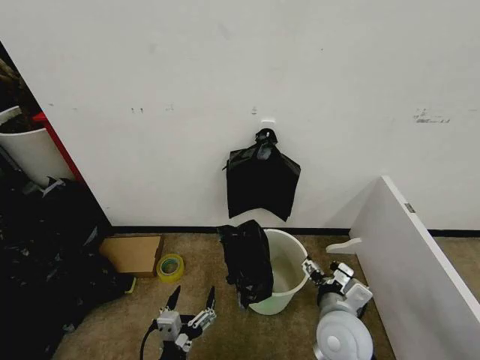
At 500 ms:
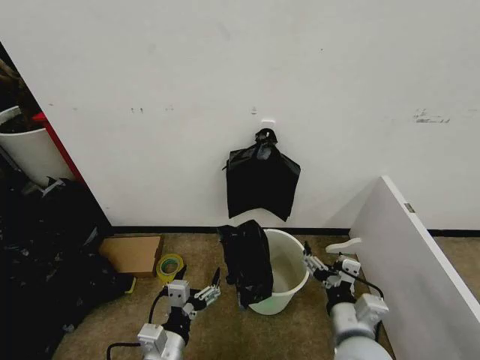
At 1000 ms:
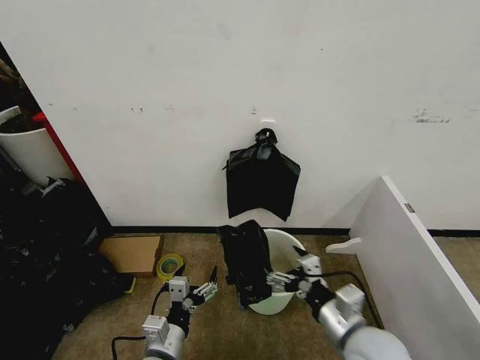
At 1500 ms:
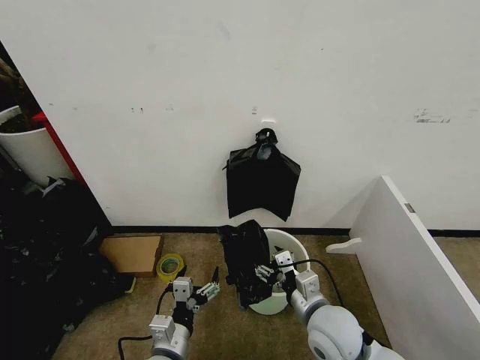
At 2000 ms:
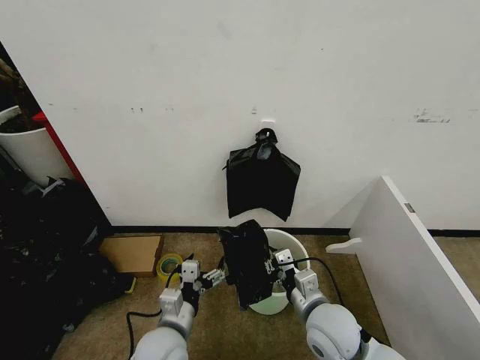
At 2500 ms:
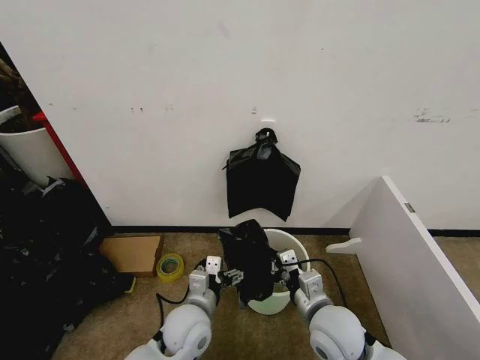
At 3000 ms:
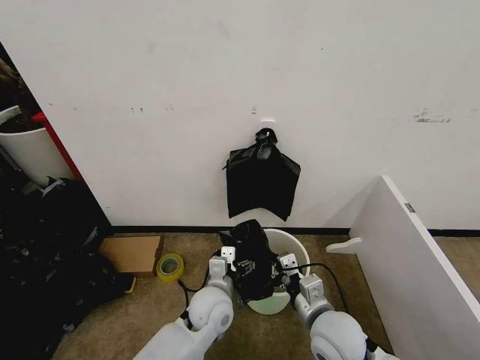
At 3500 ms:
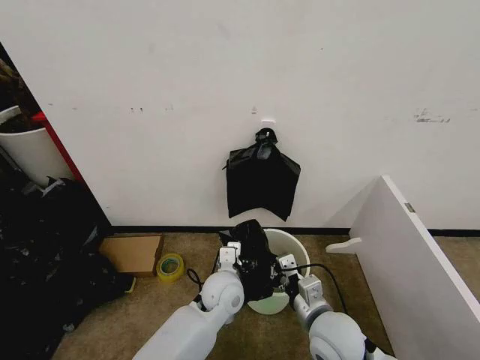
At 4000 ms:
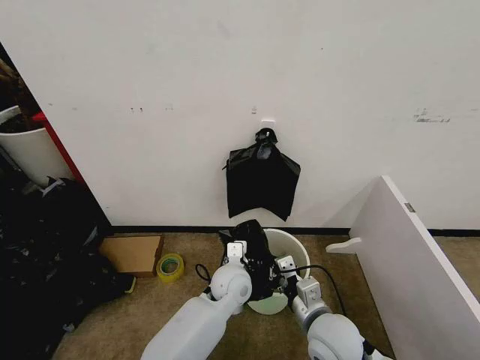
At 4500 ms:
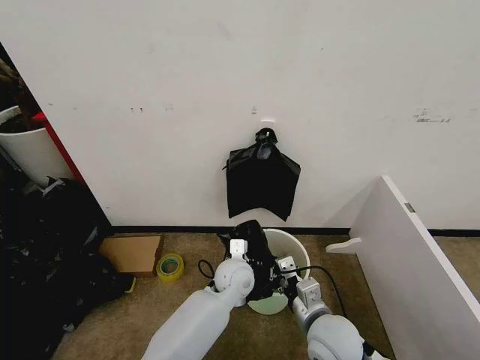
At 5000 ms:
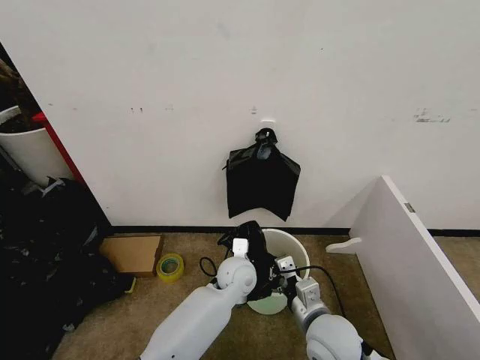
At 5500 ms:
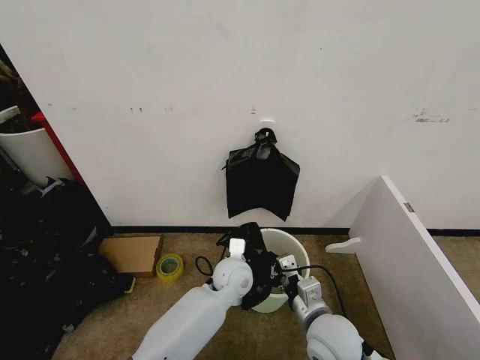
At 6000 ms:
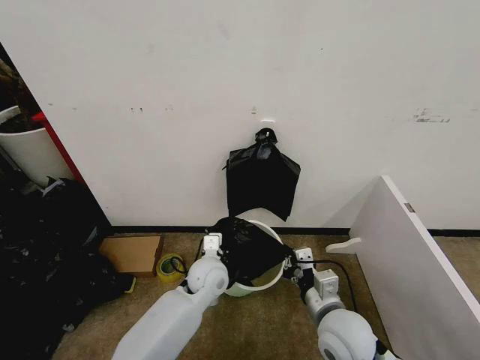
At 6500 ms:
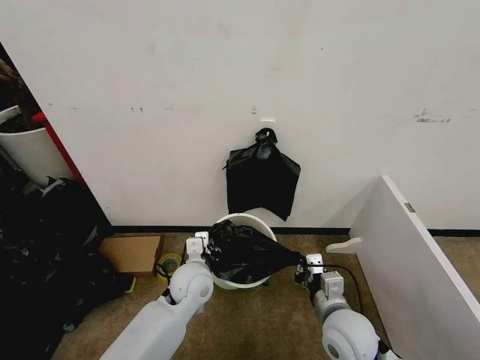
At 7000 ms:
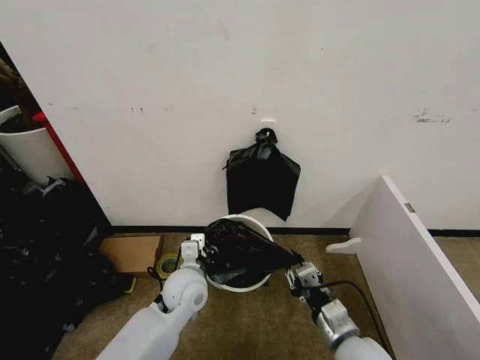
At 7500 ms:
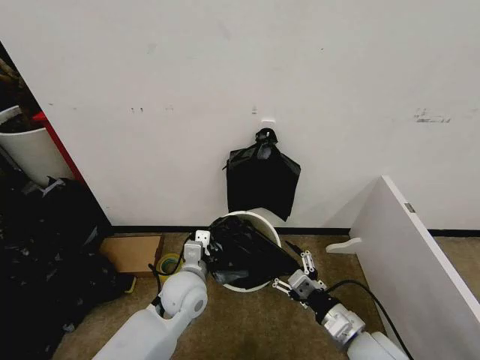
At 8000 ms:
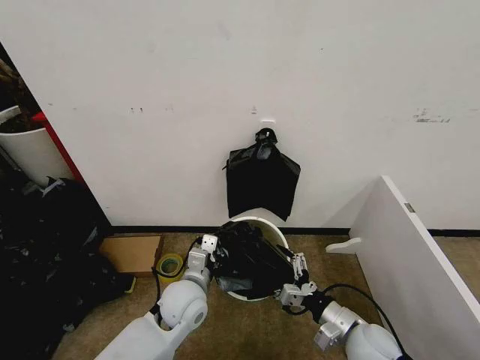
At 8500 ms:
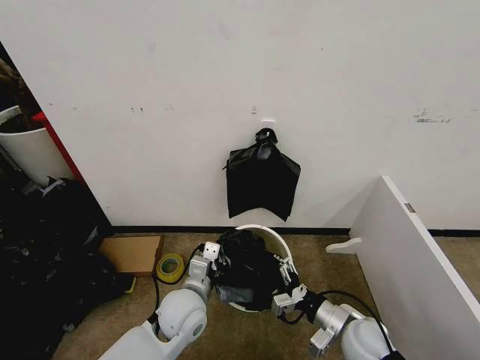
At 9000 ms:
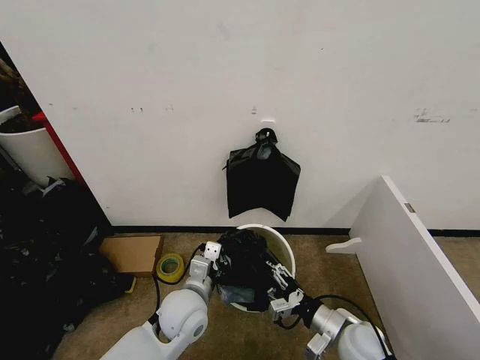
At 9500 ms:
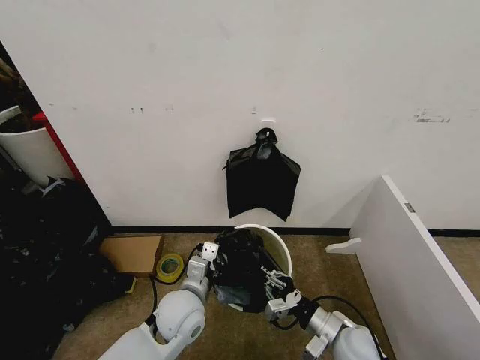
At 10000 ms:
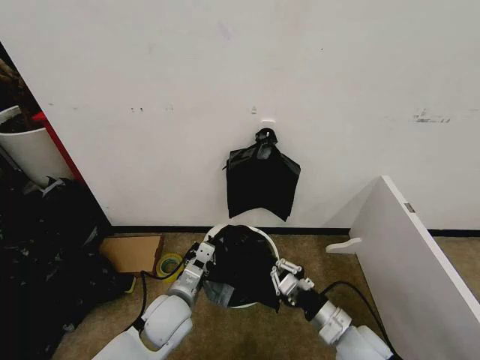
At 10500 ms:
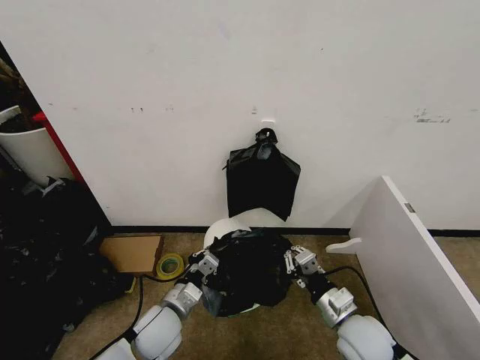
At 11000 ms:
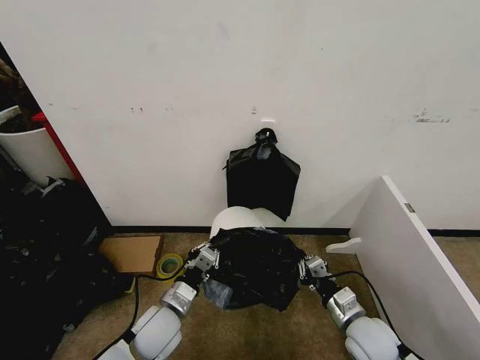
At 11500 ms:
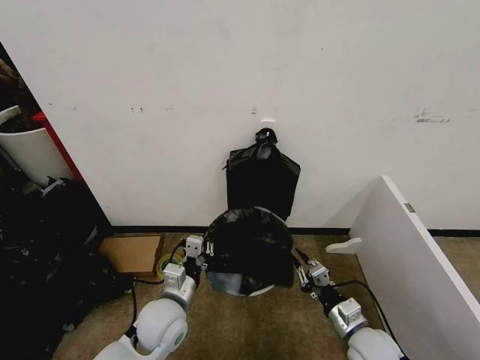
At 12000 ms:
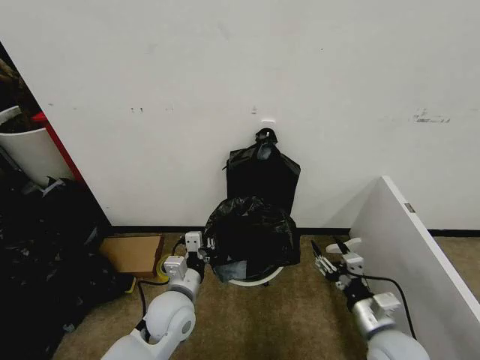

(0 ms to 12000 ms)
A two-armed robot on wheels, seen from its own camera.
Task of the whole recording: Place the garbage bag over the trash bin.
0 ms - 2000 ms: The left gripper is displaced forward by approximately 15 cm, while the right gripper closes up.
2000 ms - 4000 ms: The left gripper goes approximately 20 cm forward and to the right.
4000 ms - 6000 ms: The left gripper travels to the left by about 5 cm, and closes.
6000 ms - 8000 ms: The left gripper travels backward by approximately 5 cm. The right gripper is displaced to the right and downward by about 10 cm, and opens up.
8000 ms - 10000 ms: The right gripper closes up.
10000 ms - 12000 ms: The right gripper moves to the right, roughly 5 cm, and opens.

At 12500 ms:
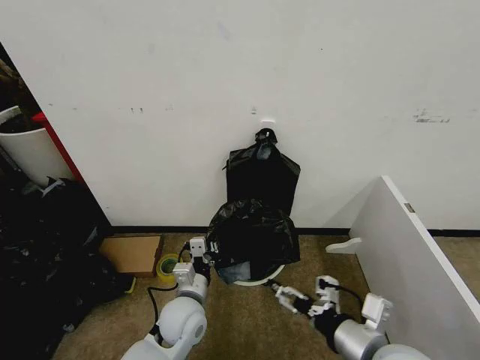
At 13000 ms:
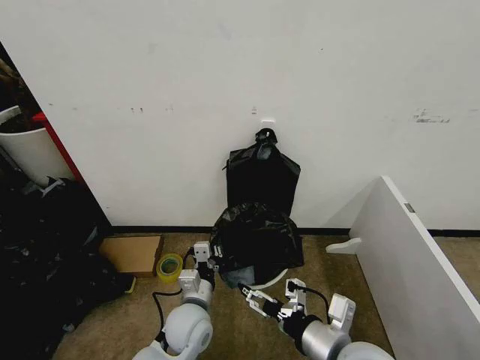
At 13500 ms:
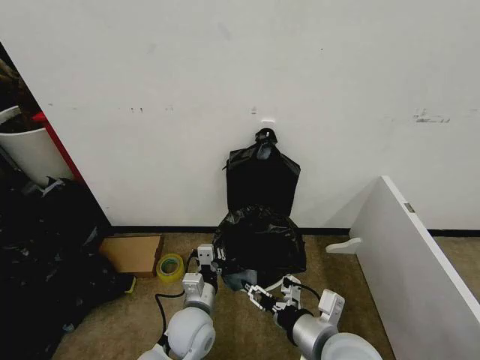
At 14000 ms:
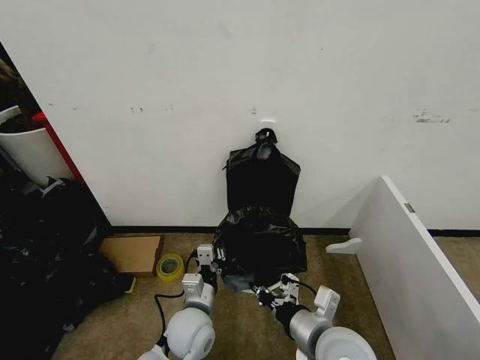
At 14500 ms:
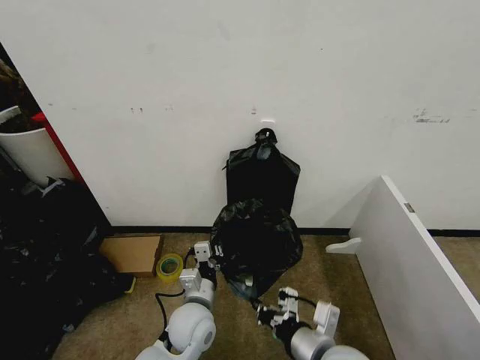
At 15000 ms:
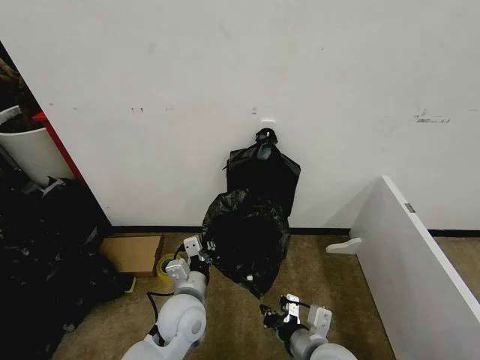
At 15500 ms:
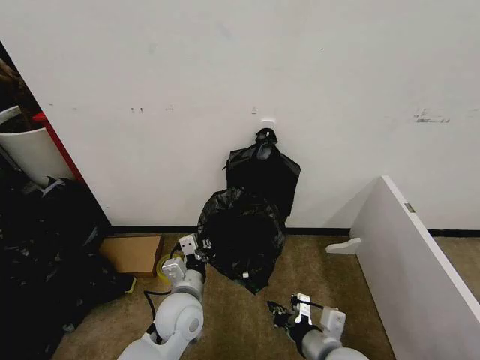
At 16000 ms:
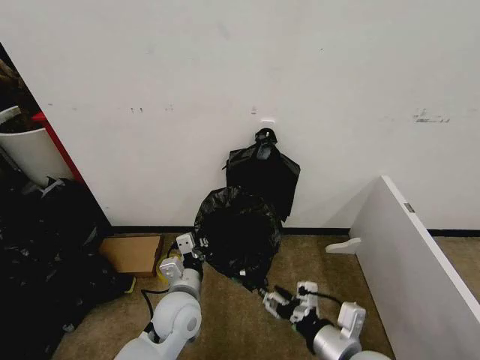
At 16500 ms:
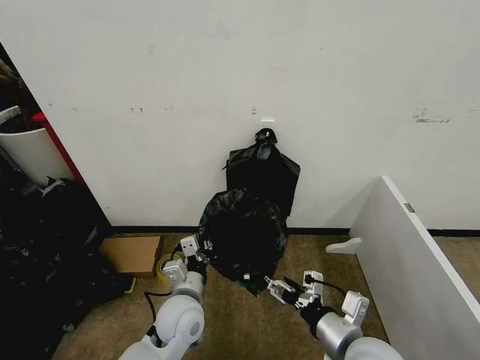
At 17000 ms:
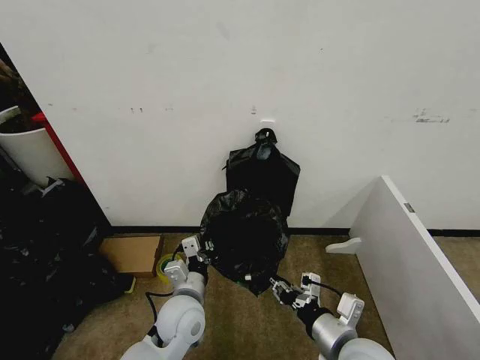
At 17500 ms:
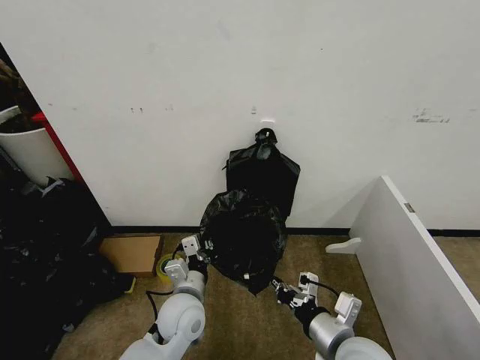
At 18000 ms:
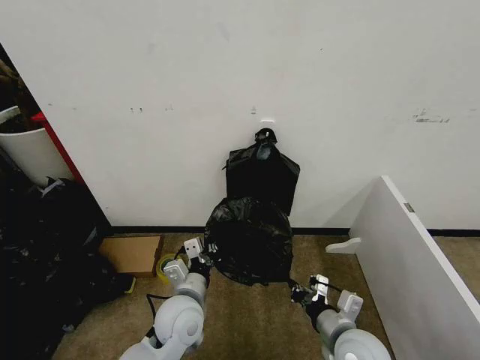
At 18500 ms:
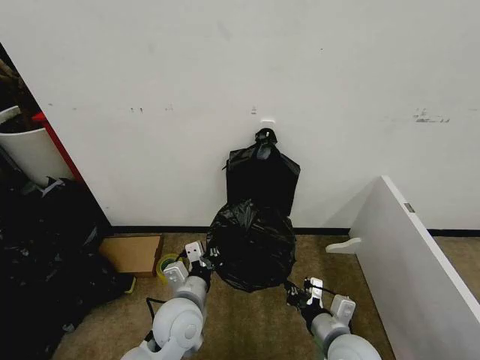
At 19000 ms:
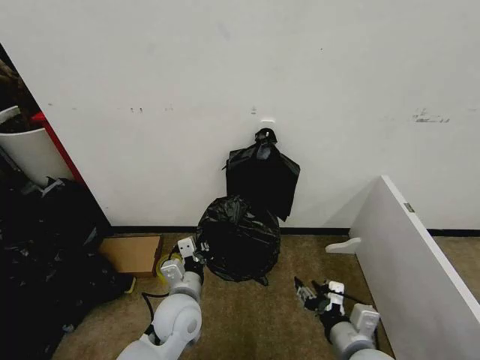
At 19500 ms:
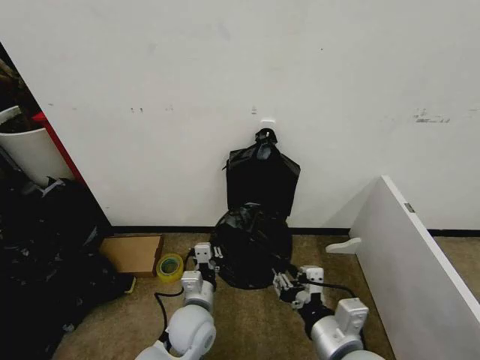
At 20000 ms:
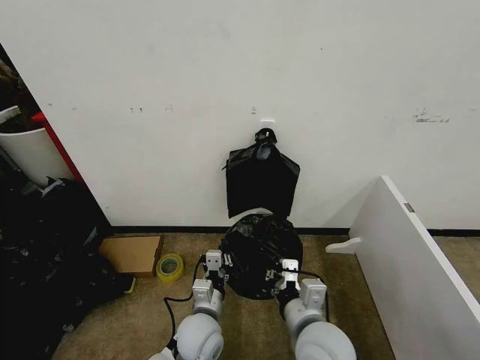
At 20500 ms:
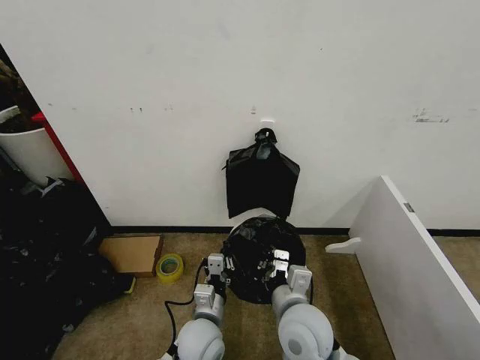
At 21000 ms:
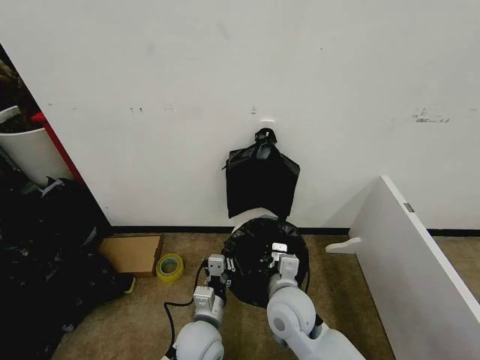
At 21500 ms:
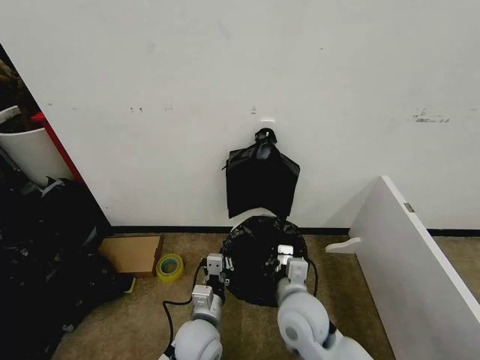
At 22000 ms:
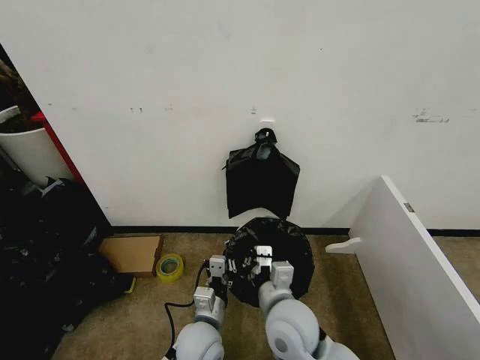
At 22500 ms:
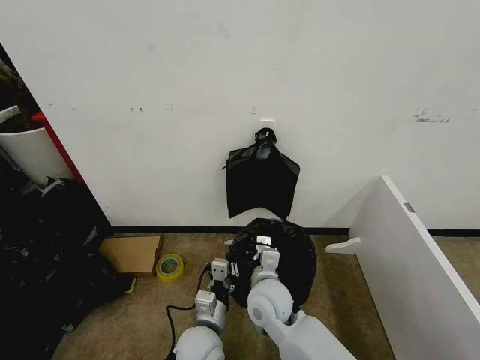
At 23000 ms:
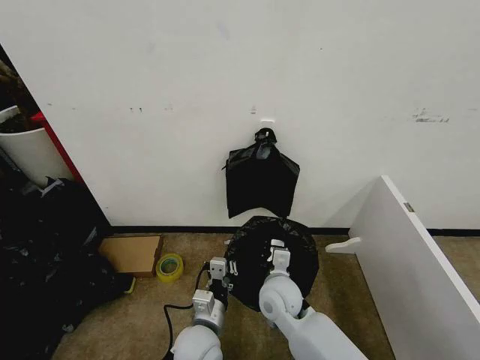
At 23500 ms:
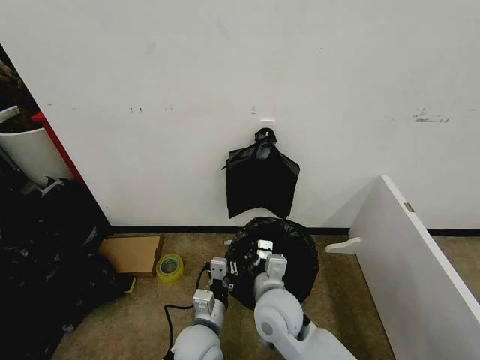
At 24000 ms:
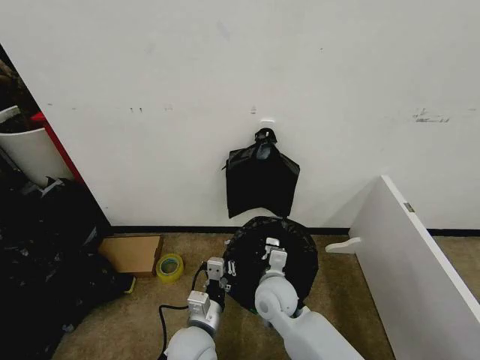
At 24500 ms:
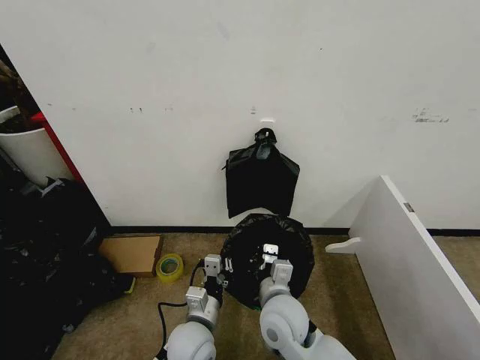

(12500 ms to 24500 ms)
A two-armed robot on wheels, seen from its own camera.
Task of the whole recording: Place the garbage bag over the trash bin.
12500 ms - 14500 ms: The right gripper travels to the left and downward by about 10 cm, and closes its fingers.
14500 ms - 16500 ms: The right gripper heads to the right, covering about 5 cm, and opens its fingers.
16500 ms - 18500 ms: The right gripper goes roughly 10 cm downward, and closes up.
18500 ms - 20500 ms: The right gripper goes roughly 10 cm to the left and upward, and opens and closes again. The left gripper shifts roughly 5 cm downward.
20500 ms - 22500 ms: The right gripper travels forward and to the left by roughly 10 cm.
22500 ms - 24500 ms: The grippers stay close to where they were, moving slightly.

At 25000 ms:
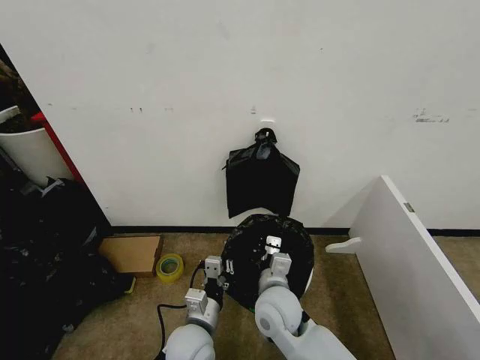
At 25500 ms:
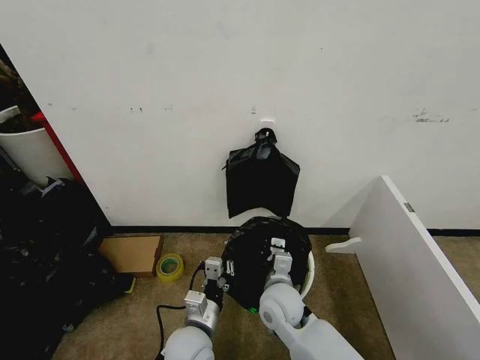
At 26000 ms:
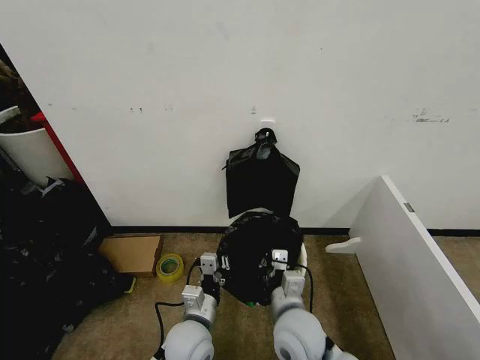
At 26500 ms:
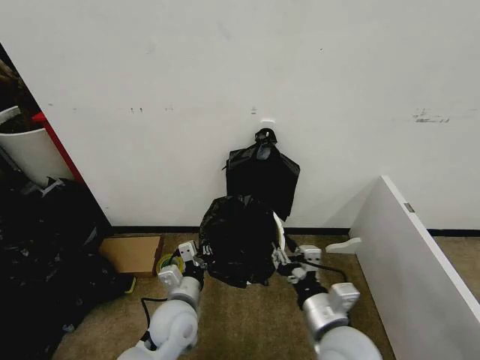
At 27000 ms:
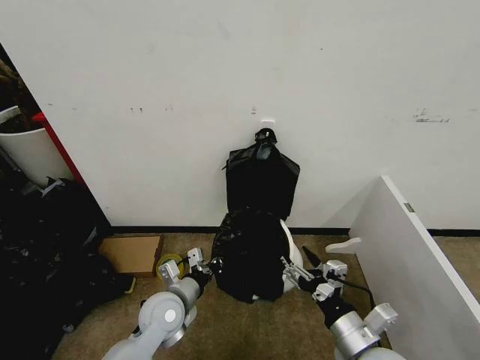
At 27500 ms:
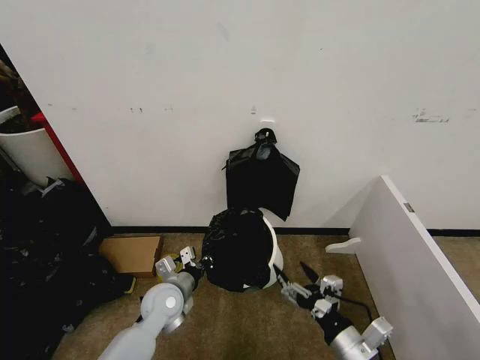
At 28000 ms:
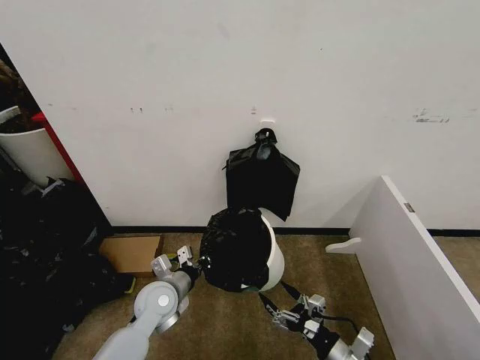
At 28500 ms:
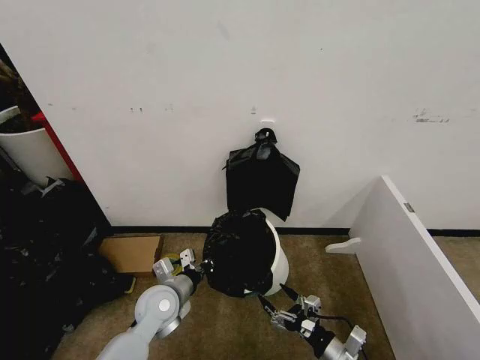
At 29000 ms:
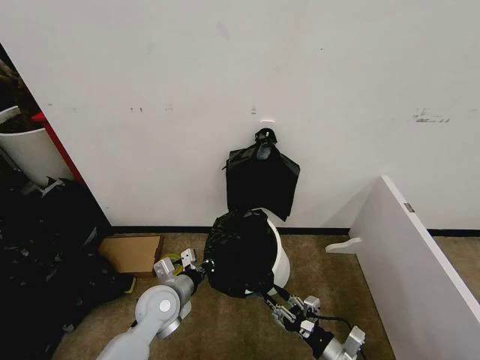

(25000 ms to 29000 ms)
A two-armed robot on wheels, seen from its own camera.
Task of the whole recording: Place the garbage bag over the trash bin.
25000 ms - 27000 ms: The left gripper is displaced to the left and forward by about 10 cm. The right gripper is displaced to the right and backward by approximately 20 cm, and opens.
27000 ms - 29000 ms: The right gripper moves downward, about 15 cm, and closes.
